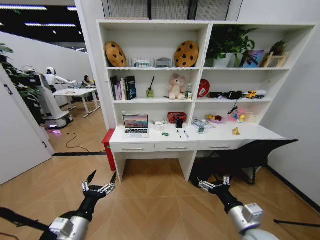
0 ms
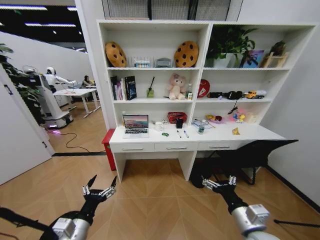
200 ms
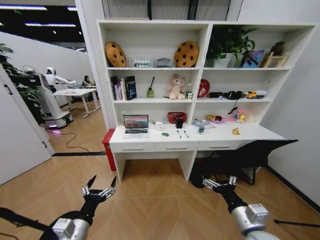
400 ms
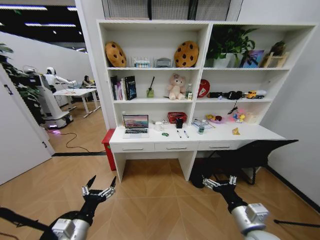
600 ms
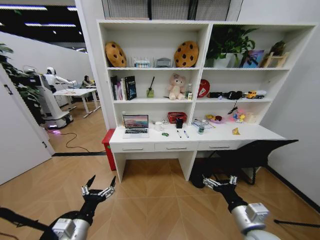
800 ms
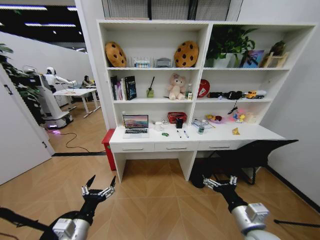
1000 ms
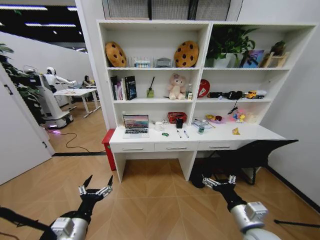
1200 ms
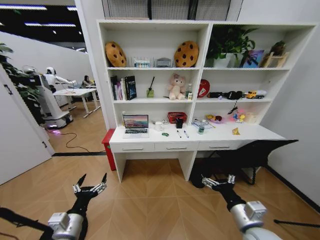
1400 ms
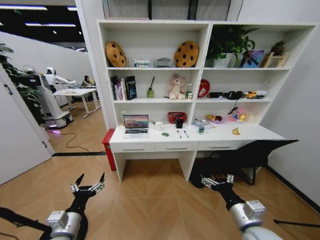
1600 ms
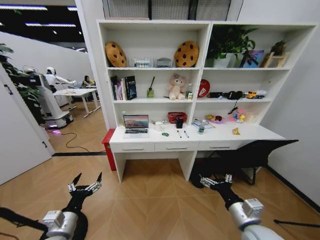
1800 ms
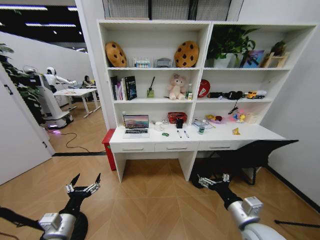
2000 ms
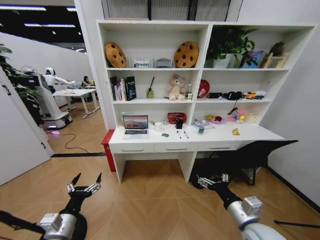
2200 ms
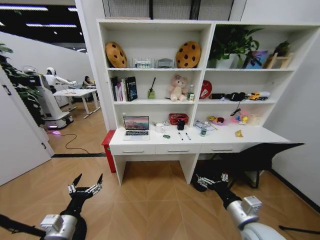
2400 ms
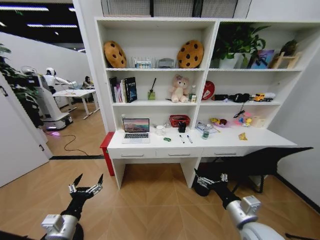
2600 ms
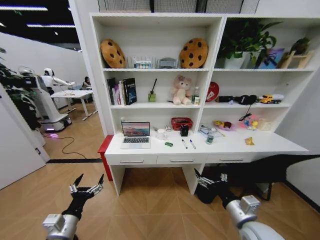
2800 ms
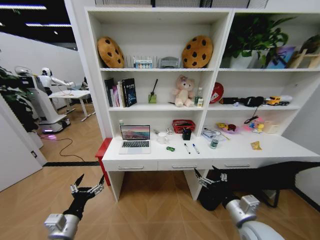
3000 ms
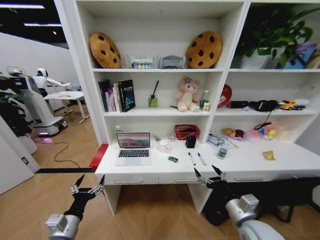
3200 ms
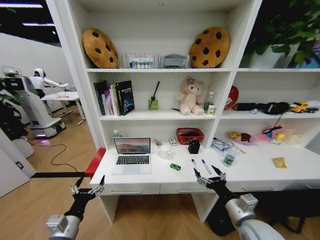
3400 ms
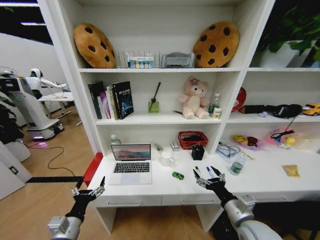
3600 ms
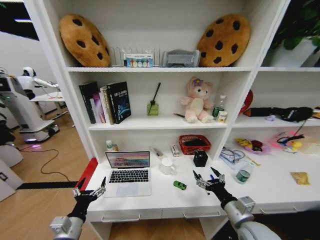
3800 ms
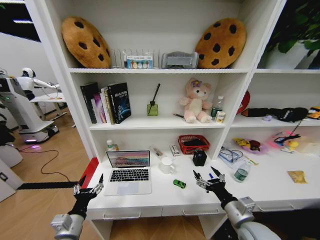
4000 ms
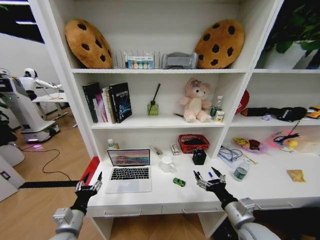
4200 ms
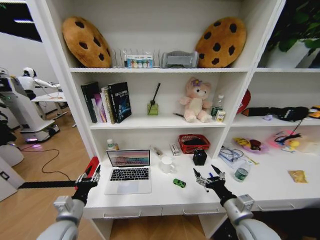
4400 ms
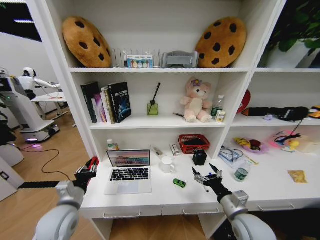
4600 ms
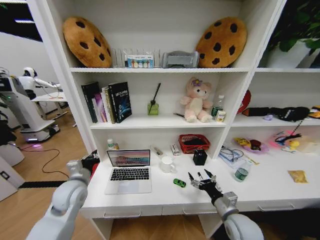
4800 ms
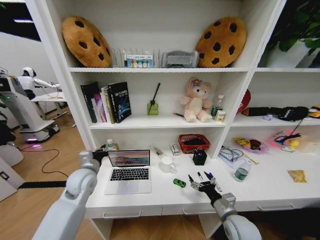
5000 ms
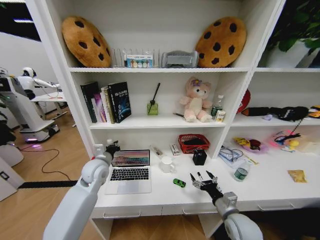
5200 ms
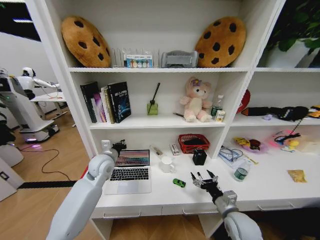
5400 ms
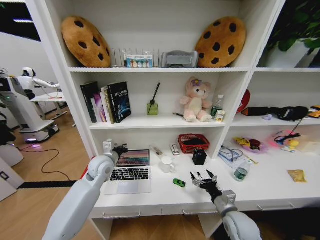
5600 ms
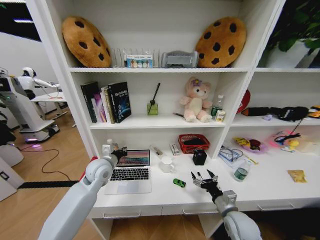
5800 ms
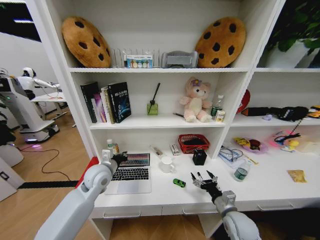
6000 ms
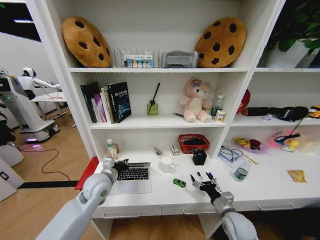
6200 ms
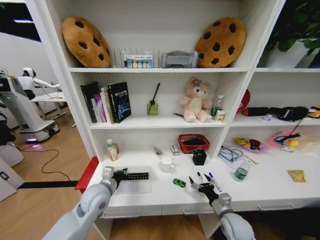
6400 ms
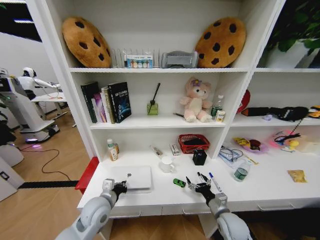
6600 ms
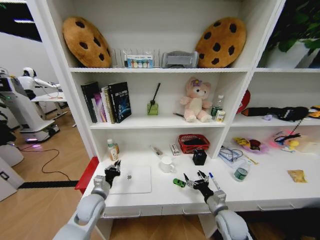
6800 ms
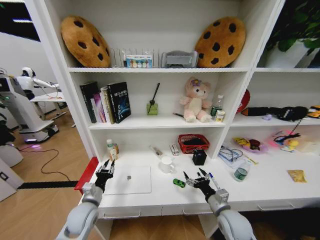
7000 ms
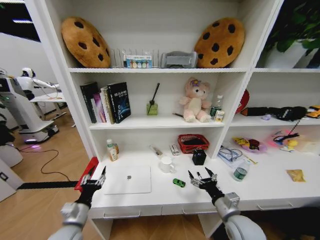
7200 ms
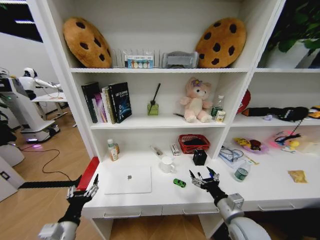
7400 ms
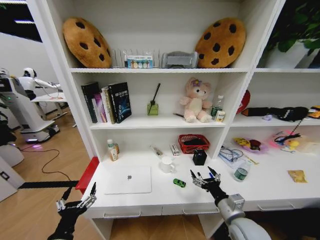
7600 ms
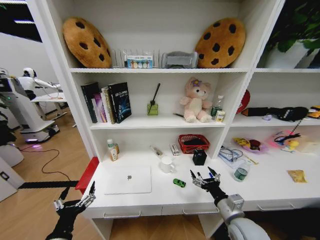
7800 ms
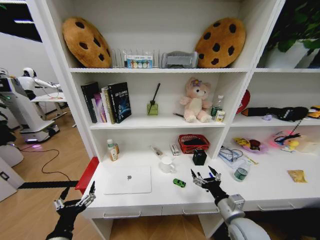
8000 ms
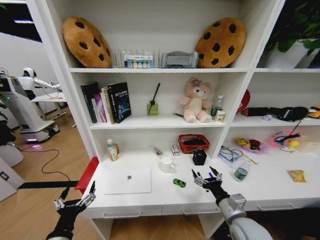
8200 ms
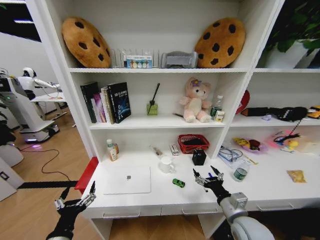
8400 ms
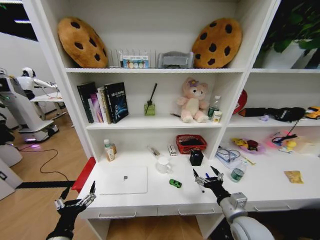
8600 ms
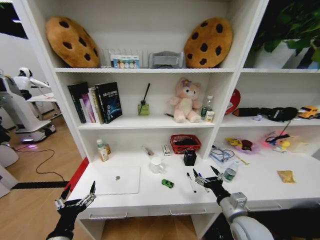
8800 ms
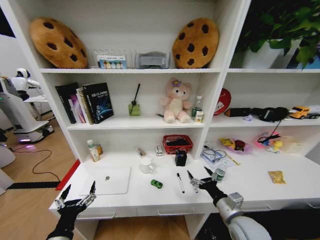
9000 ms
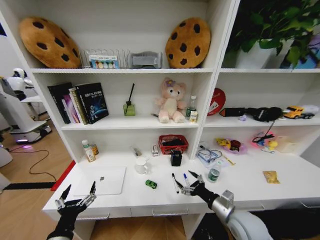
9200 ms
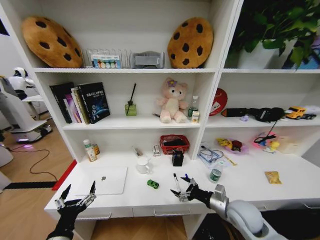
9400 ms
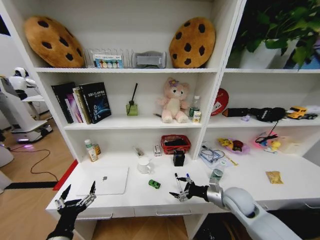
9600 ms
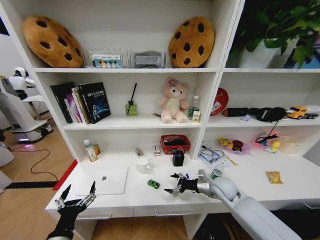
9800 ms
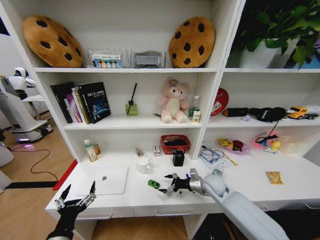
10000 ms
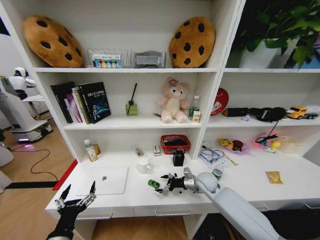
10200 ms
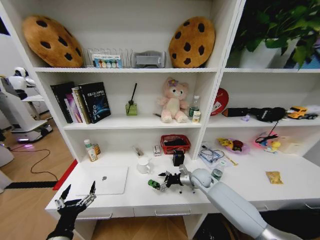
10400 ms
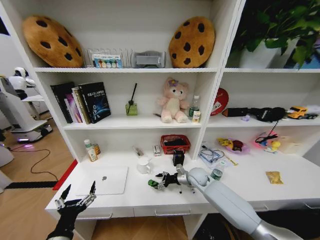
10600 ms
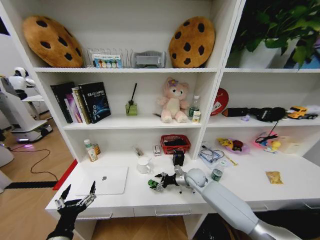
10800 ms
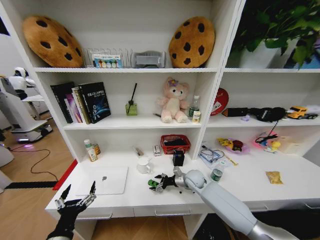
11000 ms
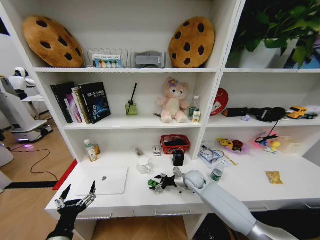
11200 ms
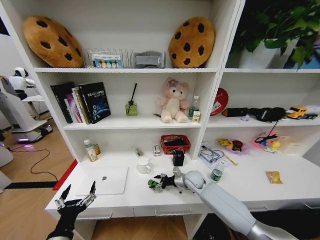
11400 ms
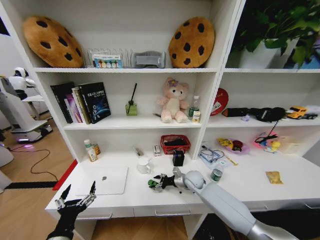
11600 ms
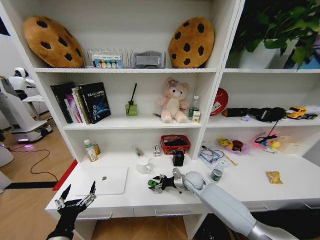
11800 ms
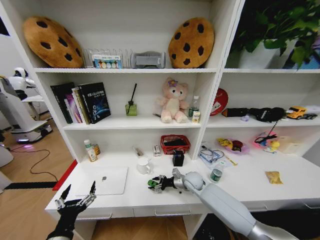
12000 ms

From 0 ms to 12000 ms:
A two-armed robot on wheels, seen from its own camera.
Task of the whole recording: Organize the objects on the table.
From 3000 ms to 4400 ms: The left gripper closes.
From 4400 ms to 6000 ms: The left gripper moves forward, to the right and upward, some 20 cm, and closes up; the right gripper goes approximately 5 cm downward.
From 6000 ms to 7600 ms: The left gripper travels backward by approximately 25 cm, and opens its fingers. The right gripper goes some 5 cm upward.
From 9000 ms to 10400 ms: The right gripper is displaced forward by about 25 cm.
From 10400 ms to 12000 ms: The grippers move only a little.

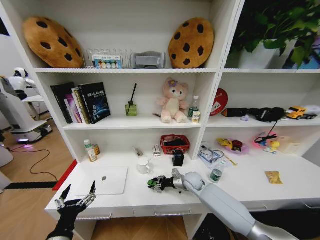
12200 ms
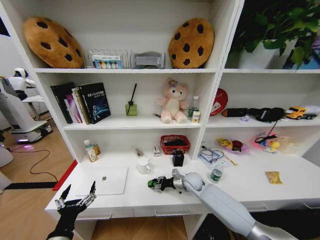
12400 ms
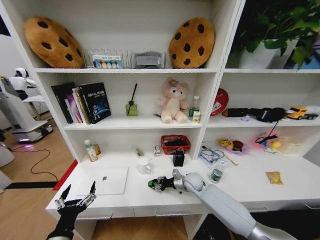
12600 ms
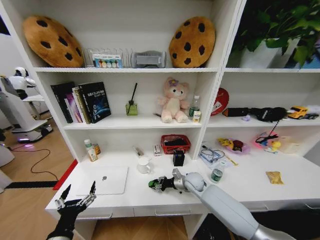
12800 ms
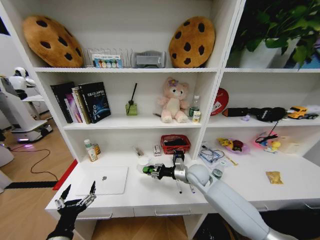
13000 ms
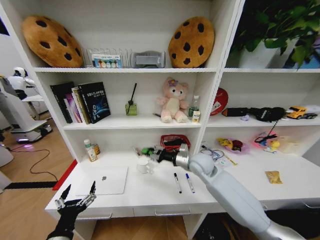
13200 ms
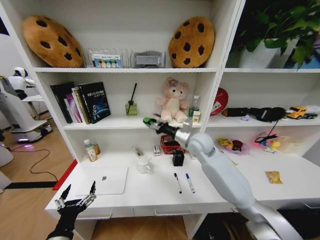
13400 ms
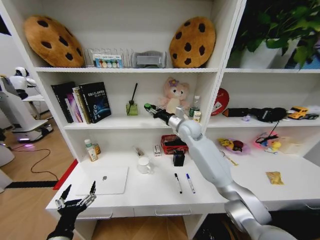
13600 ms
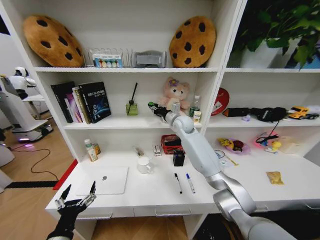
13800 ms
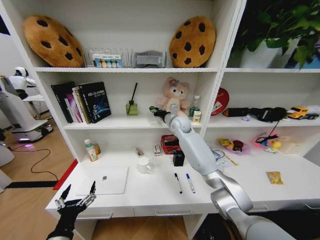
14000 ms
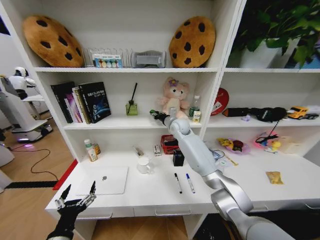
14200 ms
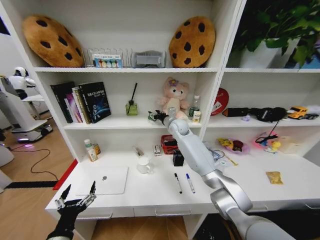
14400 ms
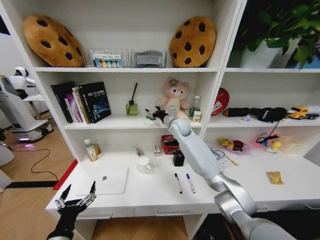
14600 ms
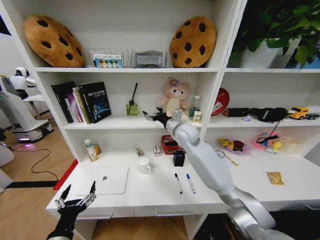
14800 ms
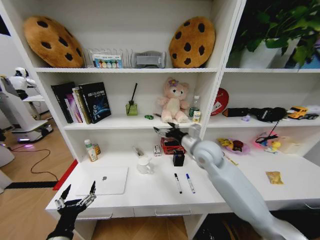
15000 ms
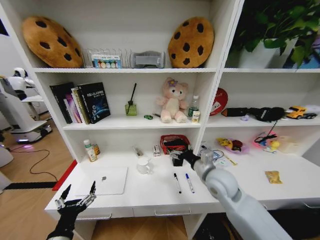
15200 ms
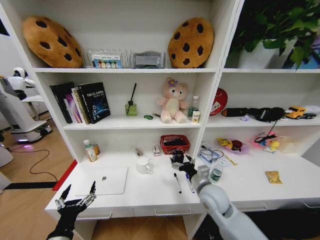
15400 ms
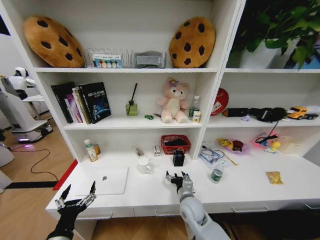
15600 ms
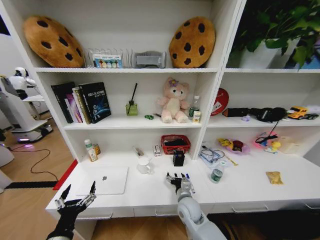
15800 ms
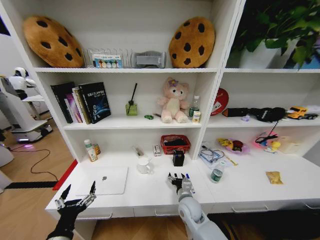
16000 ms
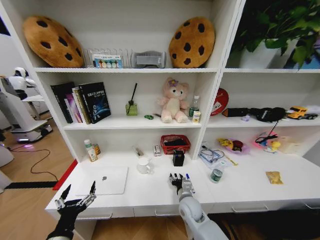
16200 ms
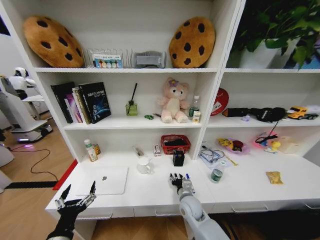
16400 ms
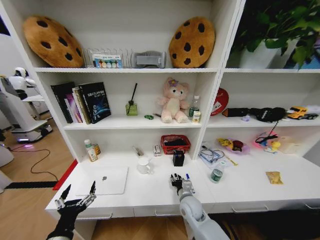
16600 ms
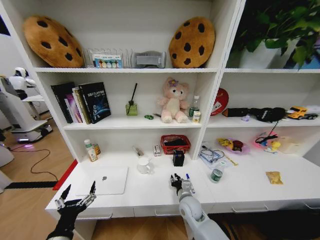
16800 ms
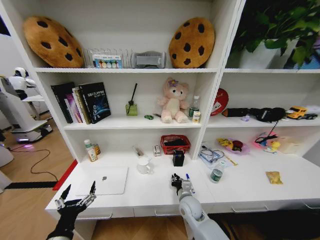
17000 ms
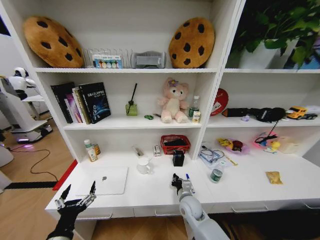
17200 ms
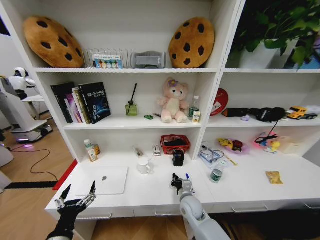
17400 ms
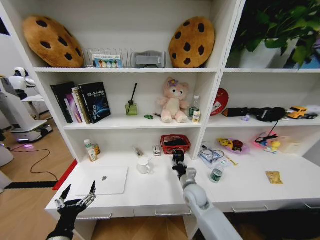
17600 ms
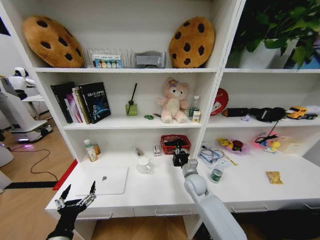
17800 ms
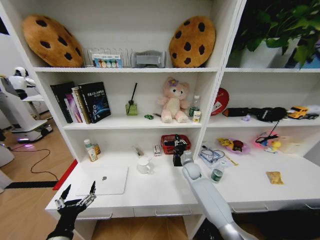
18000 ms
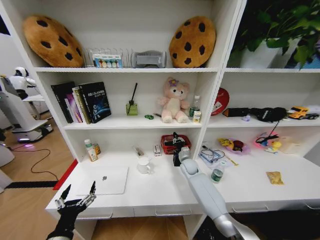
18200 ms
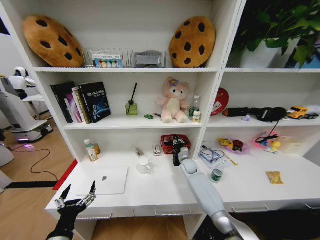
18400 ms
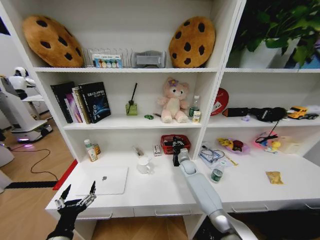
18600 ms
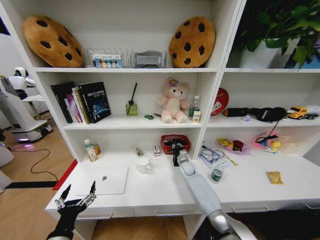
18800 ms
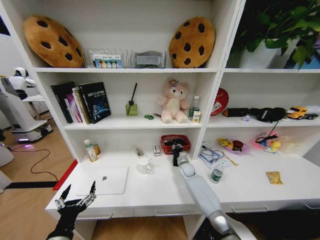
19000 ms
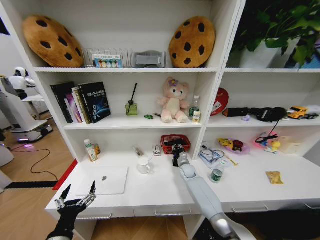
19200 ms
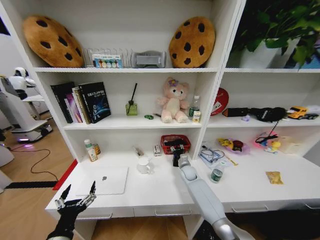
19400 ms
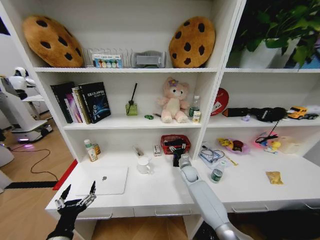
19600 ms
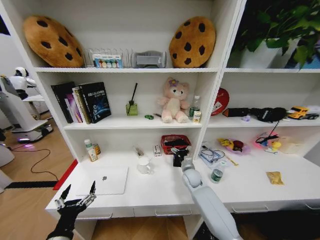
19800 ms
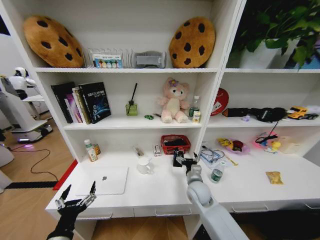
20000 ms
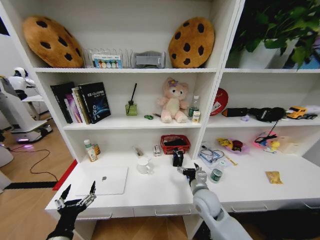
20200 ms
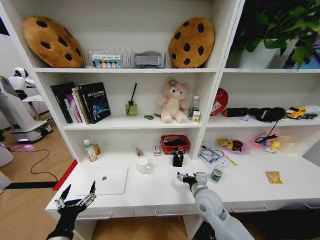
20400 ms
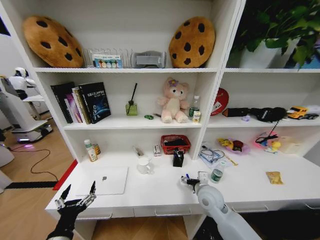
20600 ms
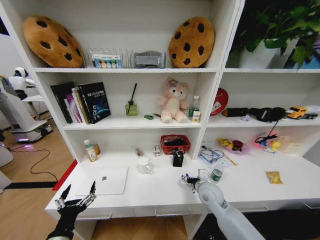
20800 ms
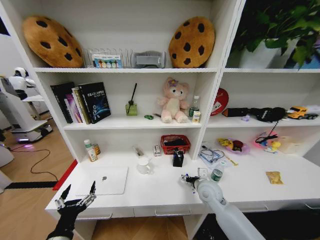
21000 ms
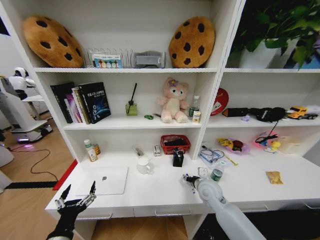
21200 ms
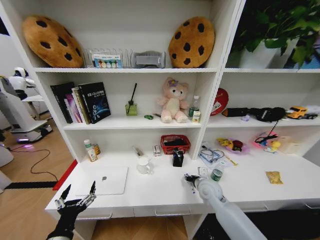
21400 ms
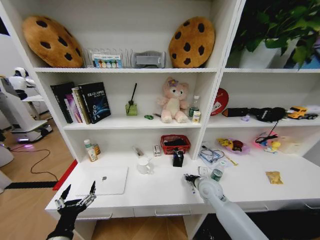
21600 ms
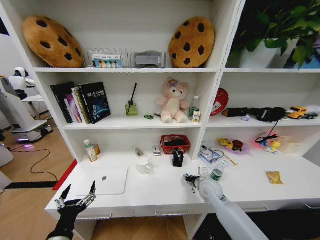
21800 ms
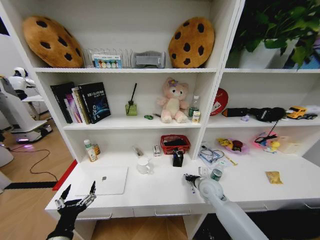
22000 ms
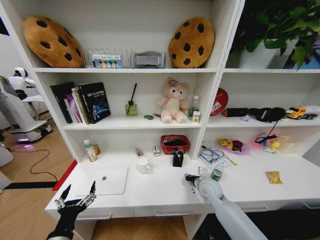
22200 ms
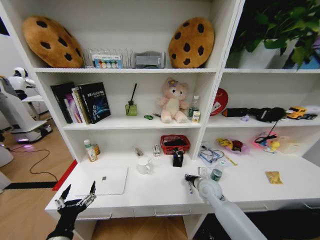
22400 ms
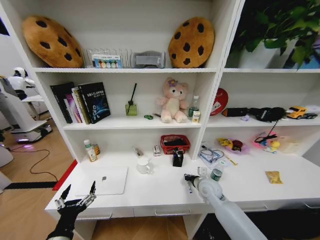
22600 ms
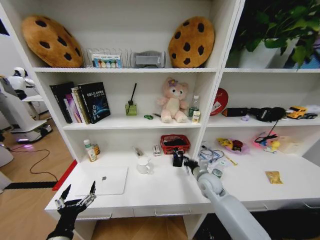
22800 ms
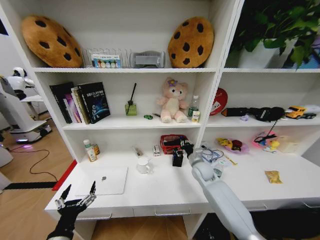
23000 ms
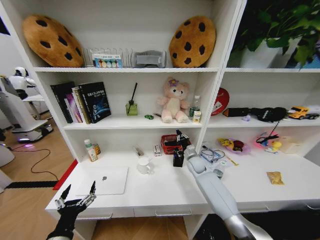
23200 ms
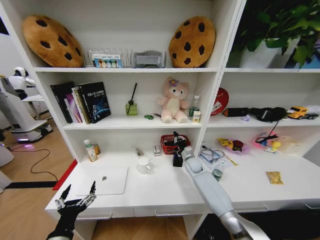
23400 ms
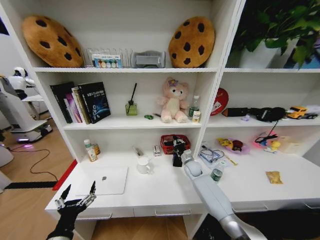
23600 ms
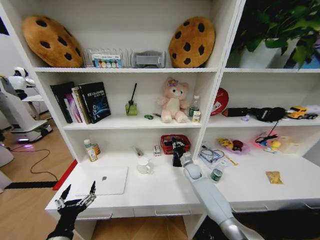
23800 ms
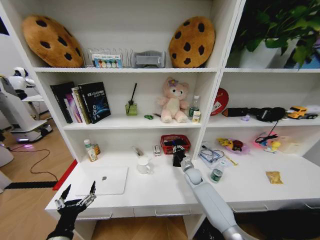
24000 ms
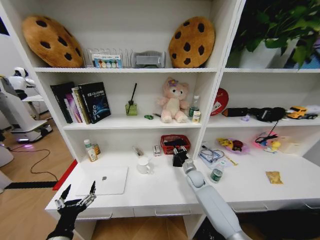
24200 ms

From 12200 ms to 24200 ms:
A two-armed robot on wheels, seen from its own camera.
Task of the whole recording: Organize the objects on the table.
From 12200 ms to 13800 ms: The right gripper moves upward and forward, some 30 cm.
From 13800 ms to 15200 ms: The right gripper goes roughly 25 cm backward, and opens up.
From 15200 ms to 16600 ms: The right gripper shifts approximately 20 cm downward, and closes its fingers.
From 16600 ms to 18200 ms: The right gripper moves forward, roughly 20 cm, and closes its fingers.
From 18200 ms to 19800 ms: The right gripper is displaced backward by some 5 cm, and opens.
From 19800 ms to 21200 ms: The right gripper shifts roughly 10 cm backward and upward.
From 21200 ms to 22600 ms: The right gripper closes up.
From 22600 ms to 24200 ms: The right gripper moves forward and downward, approximately 10 cm.
